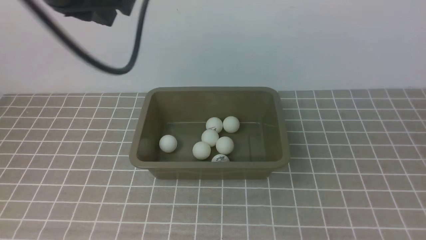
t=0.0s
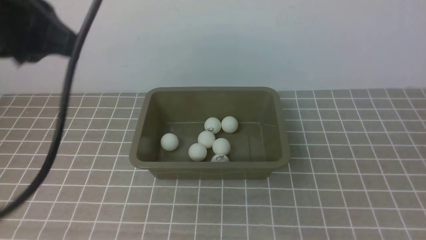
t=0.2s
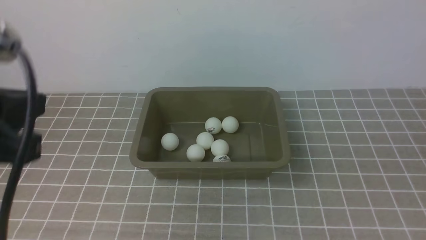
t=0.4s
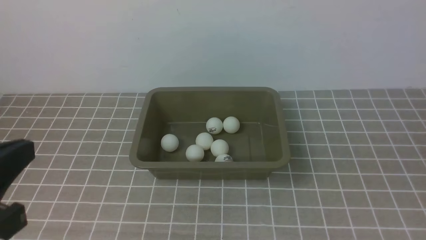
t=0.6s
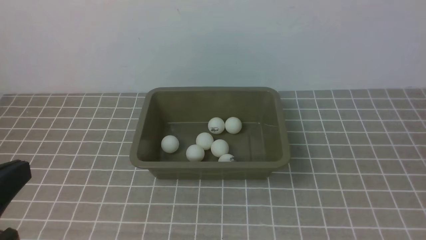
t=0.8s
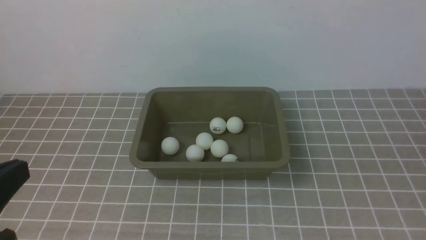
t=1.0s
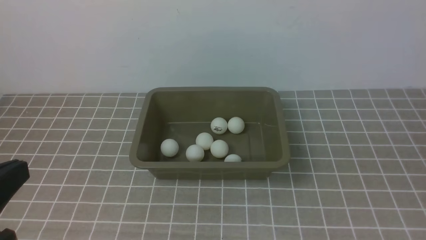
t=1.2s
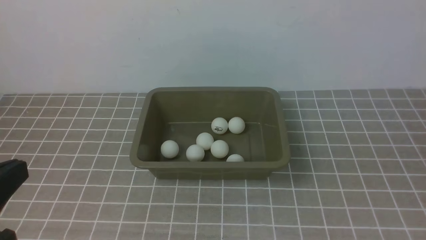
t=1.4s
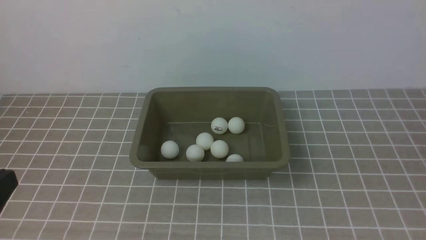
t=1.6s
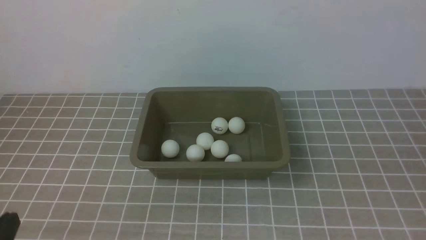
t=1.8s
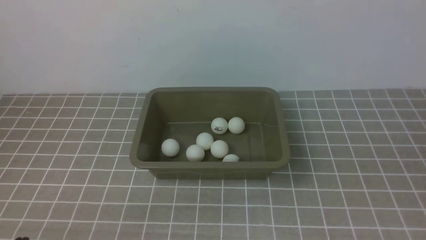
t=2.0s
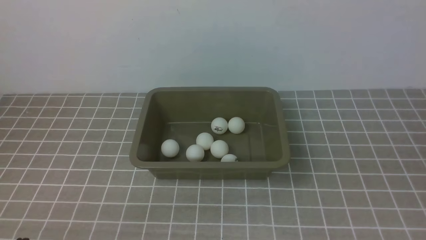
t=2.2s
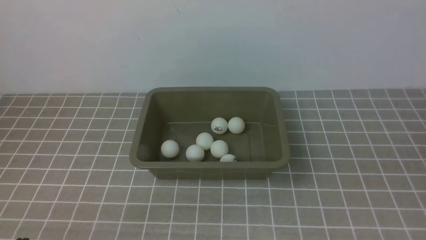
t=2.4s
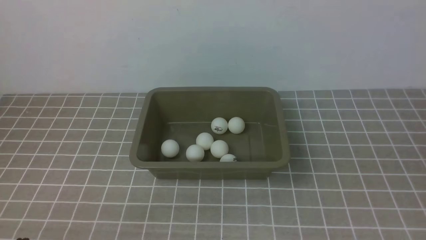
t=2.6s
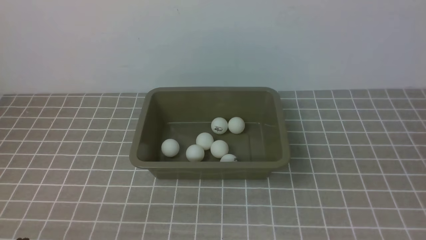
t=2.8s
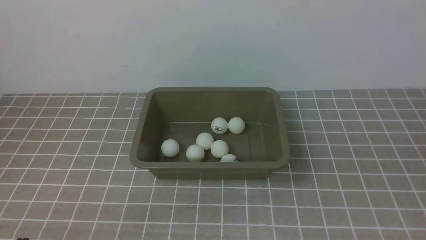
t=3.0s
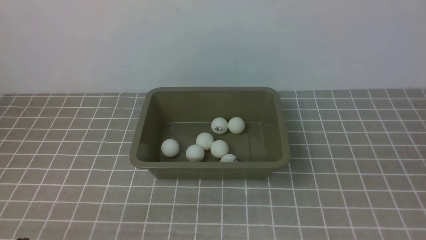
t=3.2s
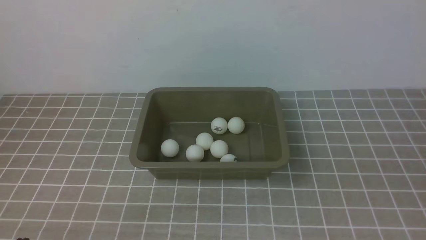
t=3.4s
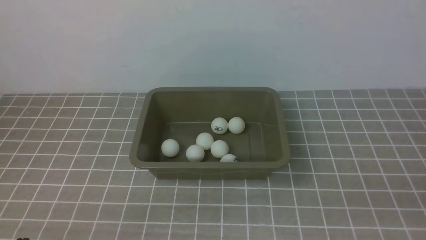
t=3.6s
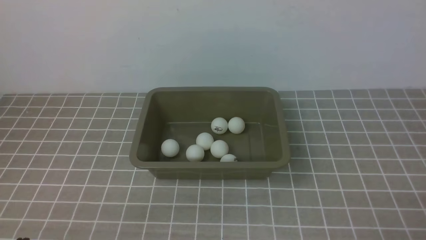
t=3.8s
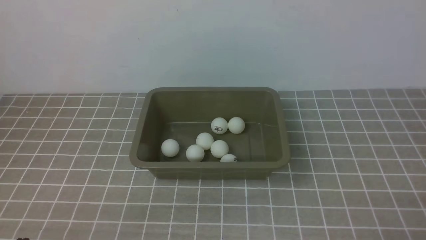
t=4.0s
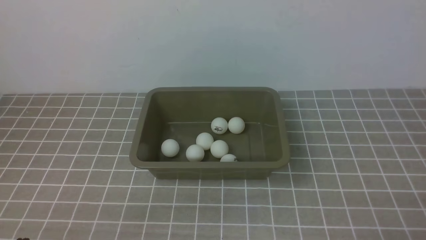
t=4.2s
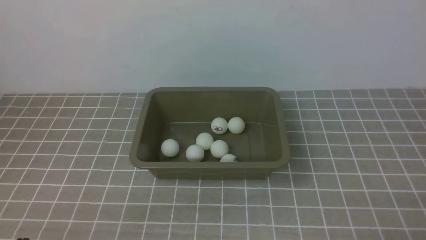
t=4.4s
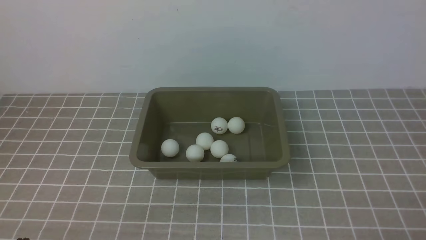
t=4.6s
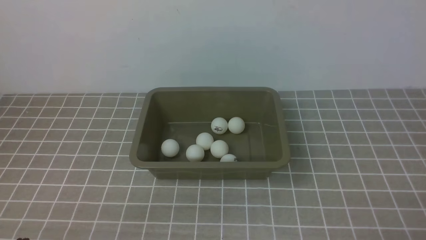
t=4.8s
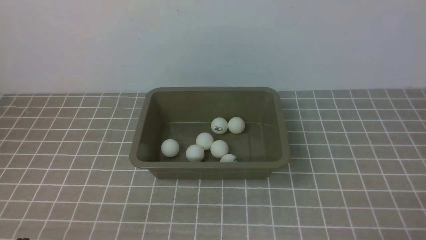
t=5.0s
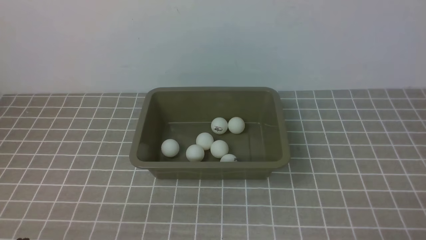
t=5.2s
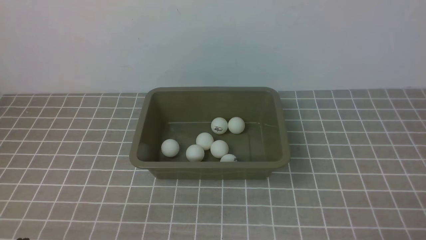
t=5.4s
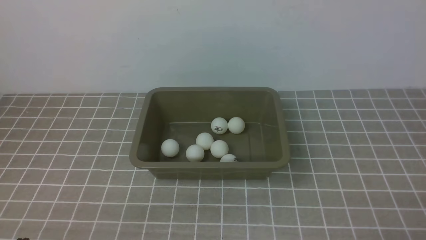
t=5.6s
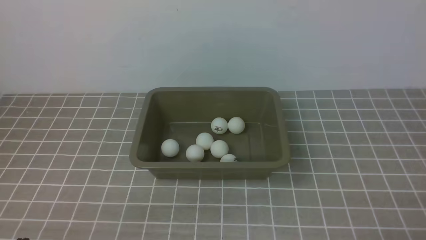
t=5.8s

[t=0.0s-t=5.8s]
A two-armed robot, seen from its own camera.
t=0.0s to t=1.4s: The left gripper goes approximately 25 cm backward and downward.
t=1.4s to t=2.8s: The left gripper heads downward, covering some 15 cm.
t=4.4s to t=5.8s: Neither gripper changes place.

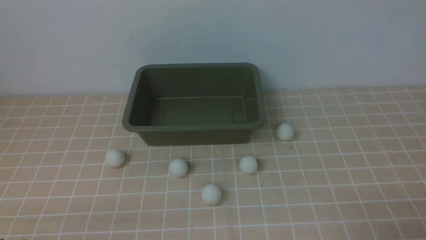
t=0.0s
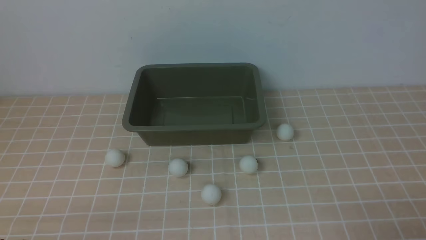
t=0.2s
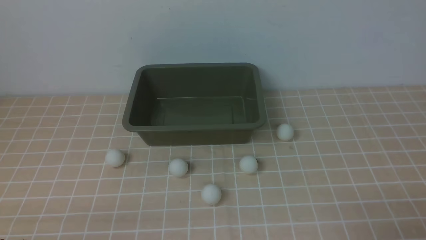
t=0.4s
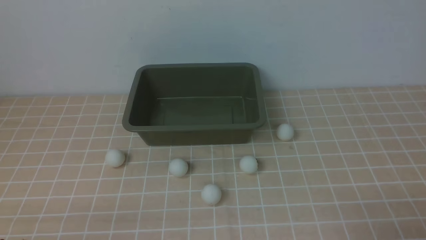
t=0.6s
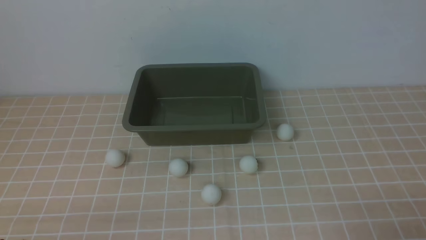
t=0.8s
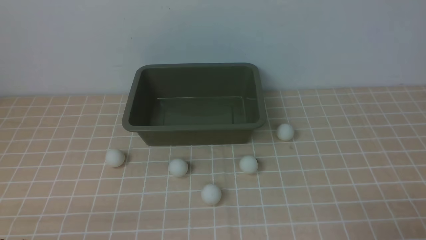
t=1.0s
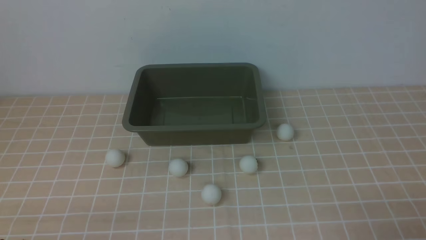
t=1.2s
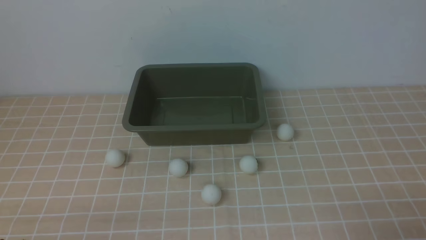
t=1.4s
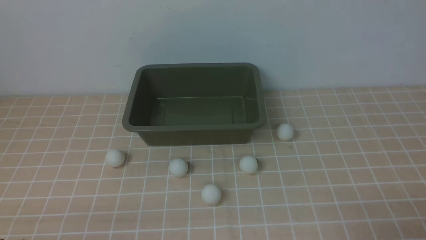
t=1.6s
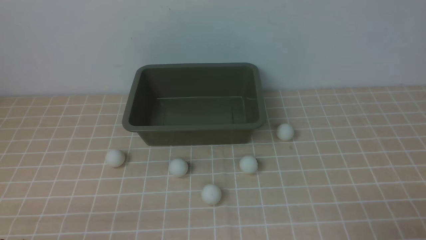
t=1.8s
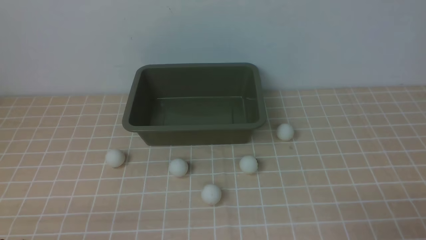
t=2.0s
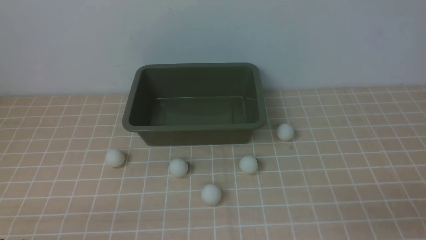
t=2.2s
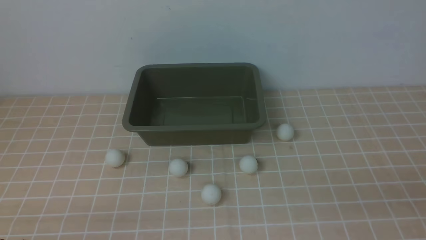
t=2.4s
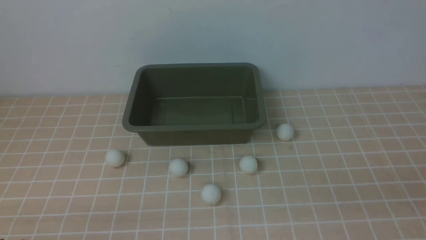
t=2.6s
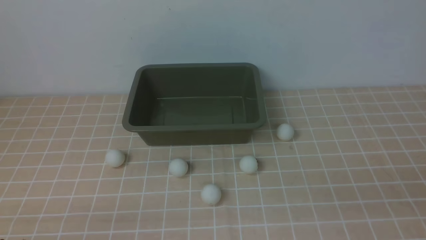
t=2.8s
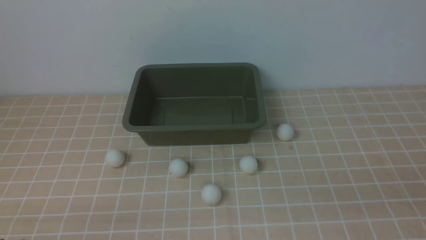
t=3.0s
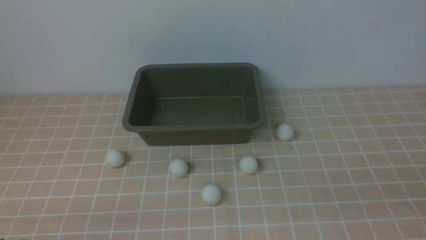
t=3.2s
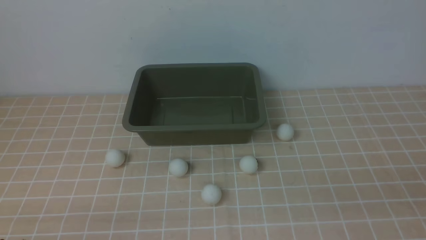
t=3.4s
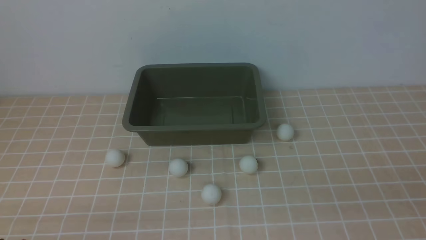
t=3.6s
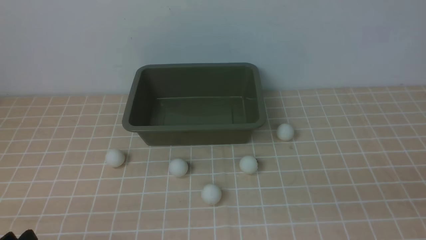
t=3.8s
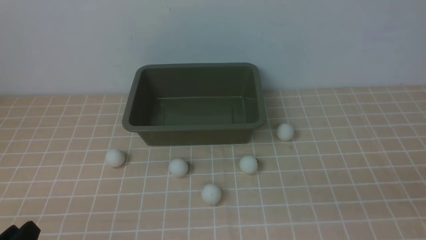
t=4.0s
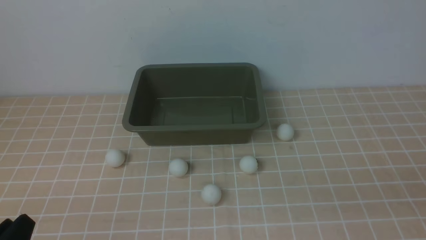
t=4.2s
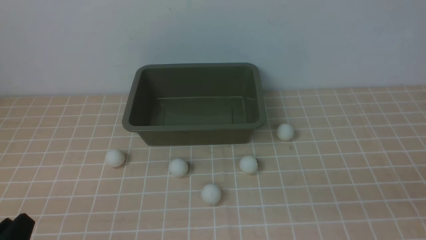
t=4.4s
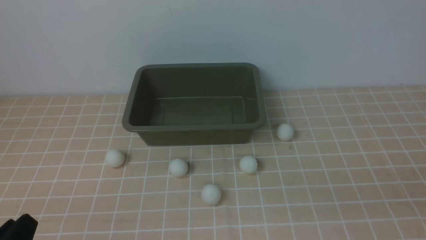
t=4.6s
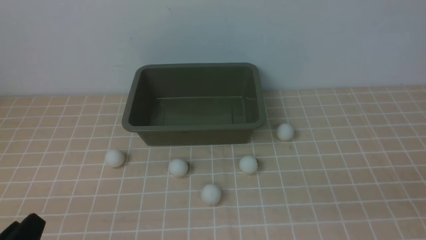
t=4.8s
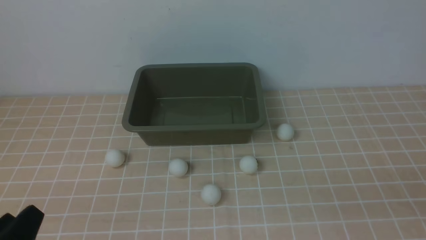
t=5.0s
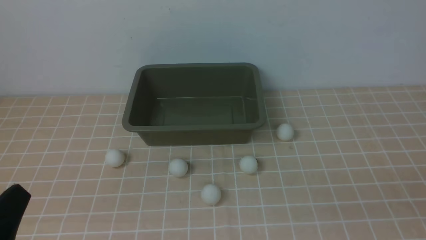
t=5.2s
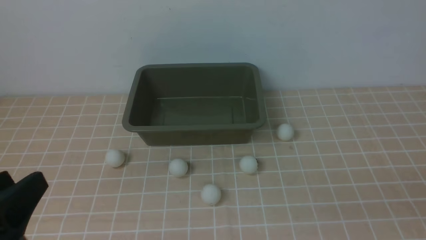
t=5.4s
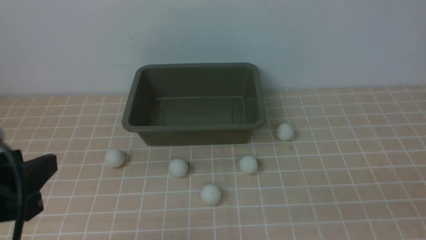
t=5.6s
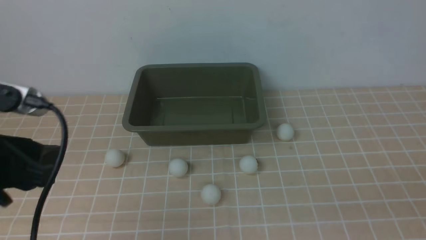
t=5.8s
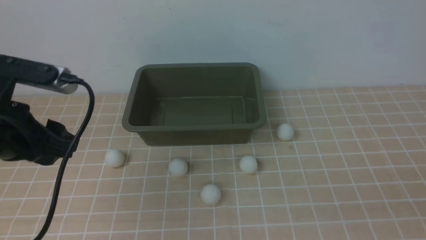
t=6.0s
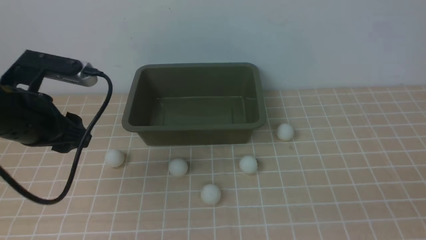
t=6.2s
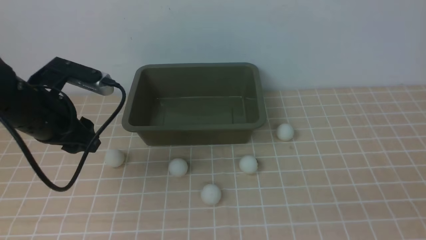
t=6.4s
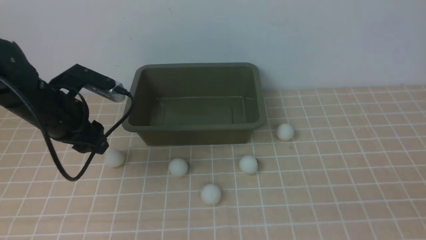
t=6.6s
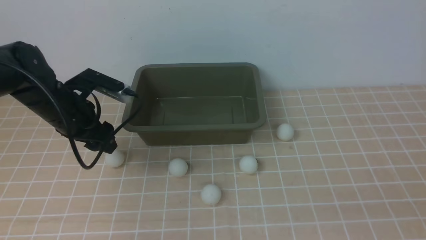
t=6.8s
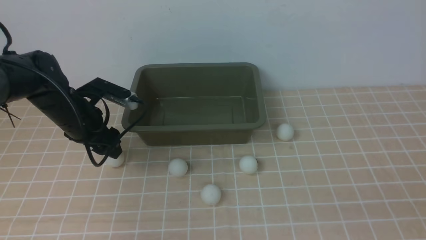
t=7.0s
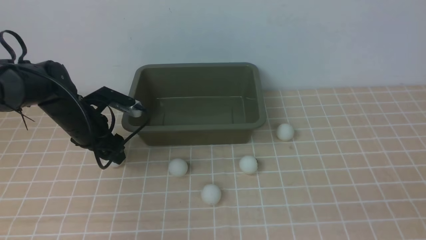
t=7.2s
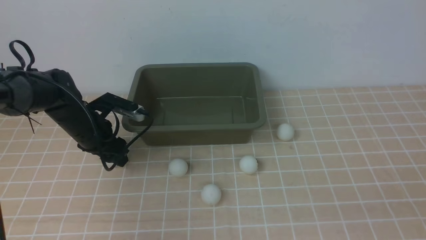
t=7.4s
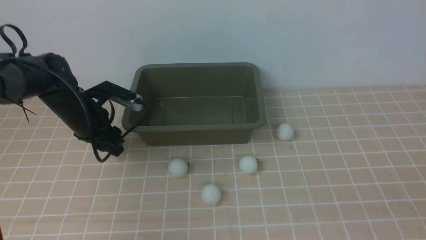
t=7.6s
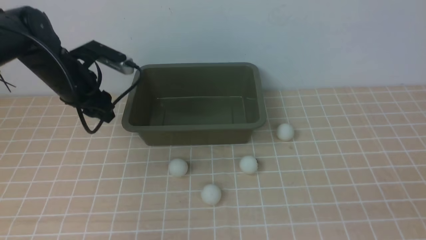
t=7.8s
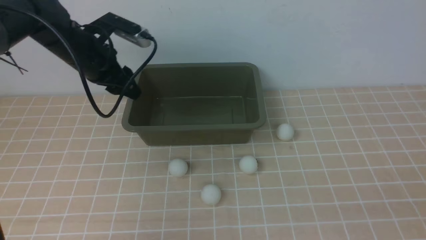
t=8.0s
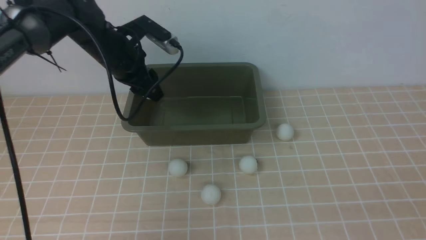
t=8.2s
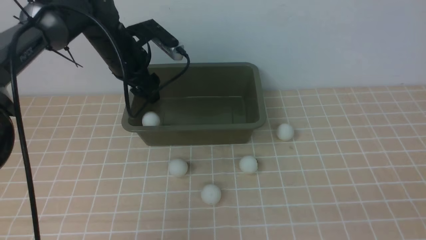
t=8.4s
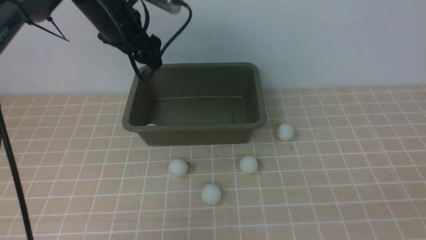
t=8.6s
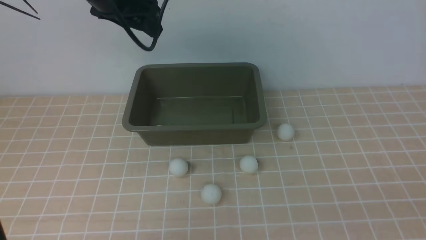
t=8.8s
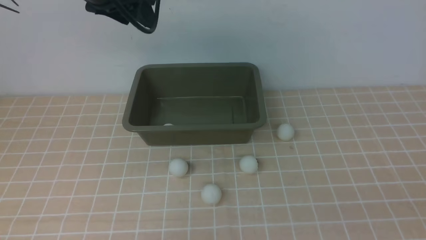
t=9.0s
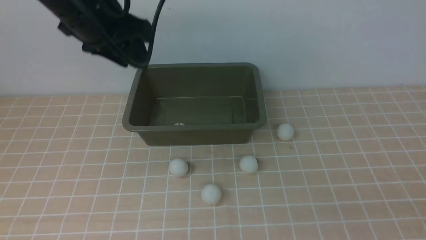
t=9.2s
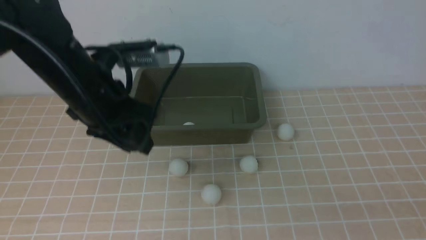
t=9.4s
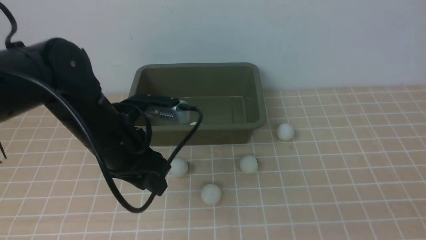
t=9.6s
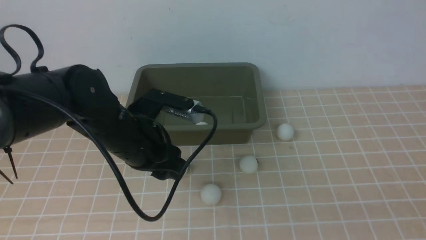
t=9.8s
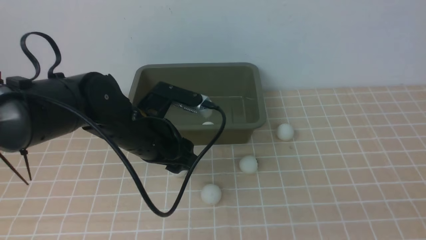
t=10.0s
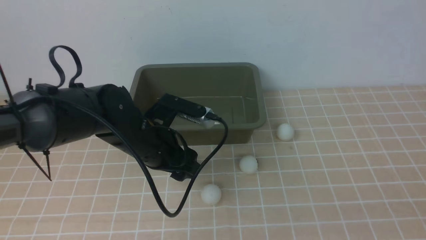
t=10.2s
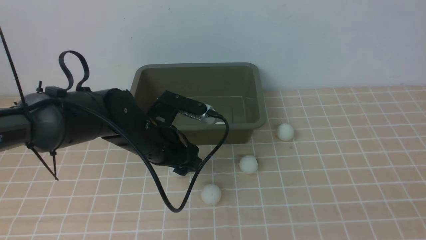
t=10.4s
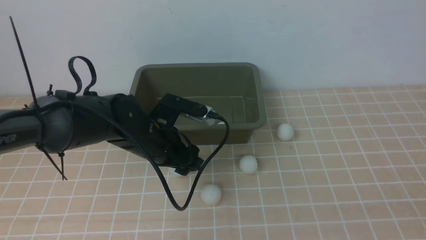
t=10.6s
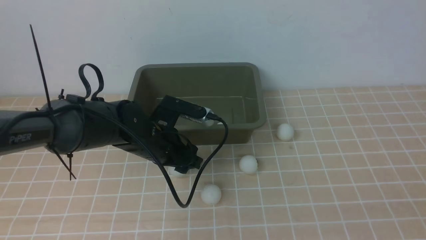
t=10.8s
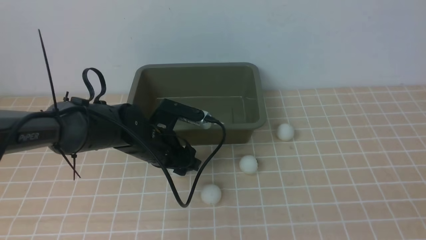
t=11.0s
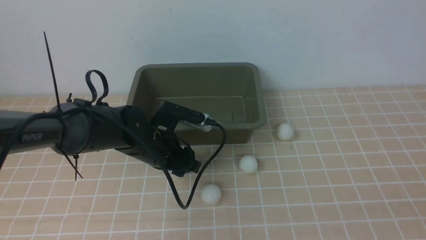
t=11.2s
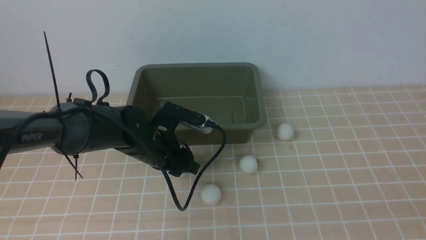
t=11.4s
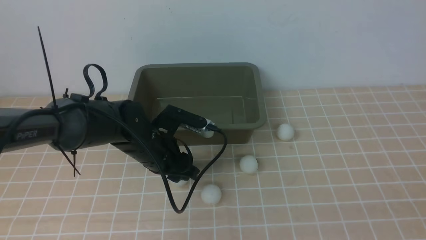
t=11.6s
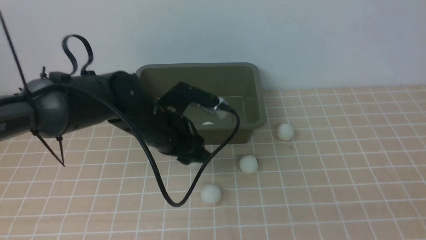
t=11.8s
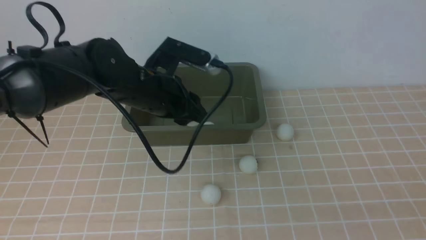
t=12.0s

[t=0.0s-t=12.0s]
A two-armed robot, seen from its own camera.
Step, t=0.0s to t=8.2s: use the left arm to clamp the table tennis ball closest to it.
Step, t=8.4s to t=9.2s: use the left arm to put the table tennis ball into the box.
Step, t=9.4s to t=11.6s: use the left arm to clamp the table tennis ball closest to it.
t=0.0s to t=1.6s: Both grippers stay put.
t=4.4s to t=6.0s: The left gripper shifts approximately 20 cm forward and upward, and opens its fingers.
t=6.0s to t=7.6s: The left gripper heads forward and downward, covering roughly 20 cm, and opens, then closes again.
t=7.6s to t=9.0s: The left gripper is displaced upward by about 20 cm, and opens, then closes once more.
t=9.0s to t=10.4s: The left gripper goes some 20 cm downward, and opens; the right gripper closes its fingers.
t=10.4s to t=12.0s: The left gripper heads upward, covering about 5 cm, and closes.
